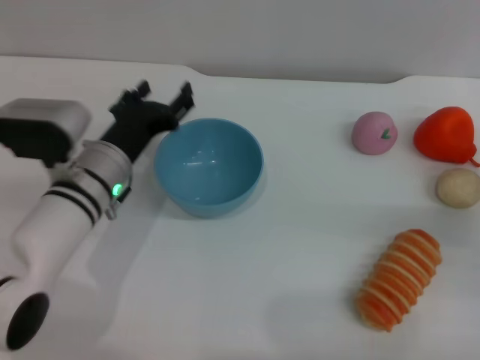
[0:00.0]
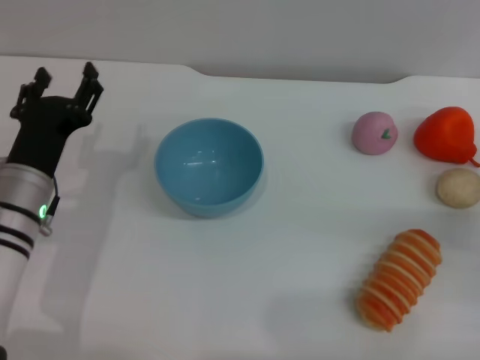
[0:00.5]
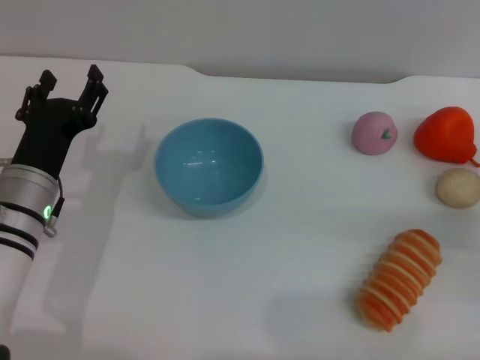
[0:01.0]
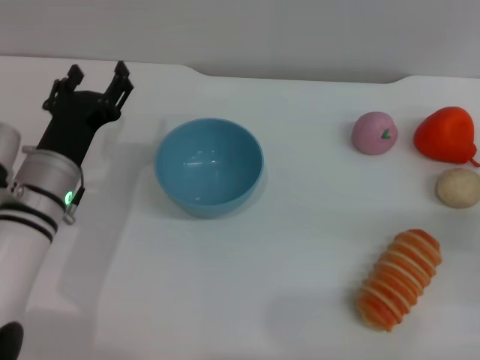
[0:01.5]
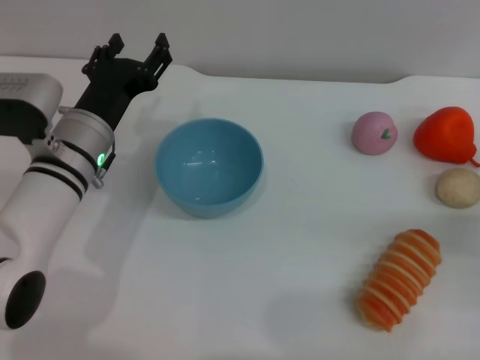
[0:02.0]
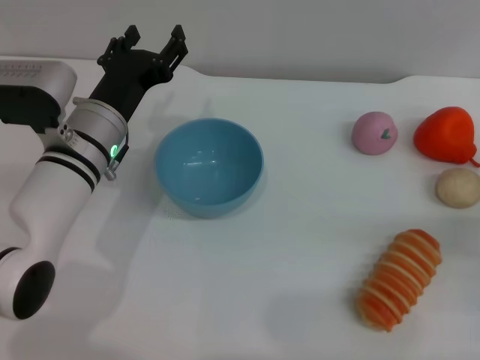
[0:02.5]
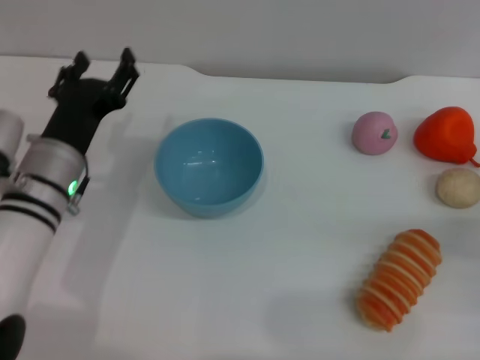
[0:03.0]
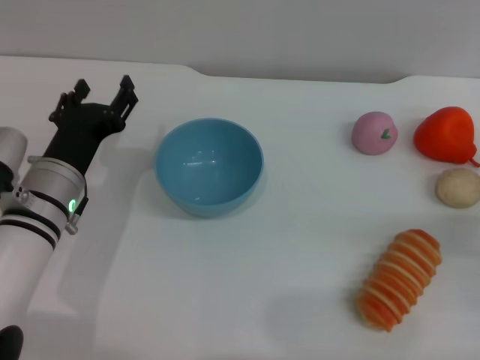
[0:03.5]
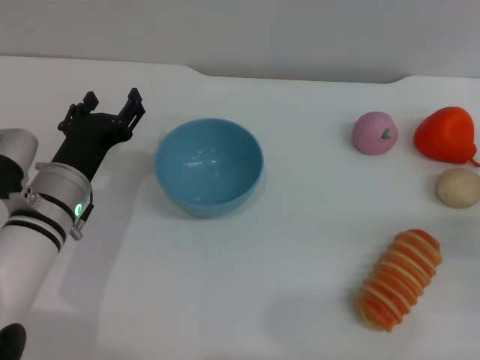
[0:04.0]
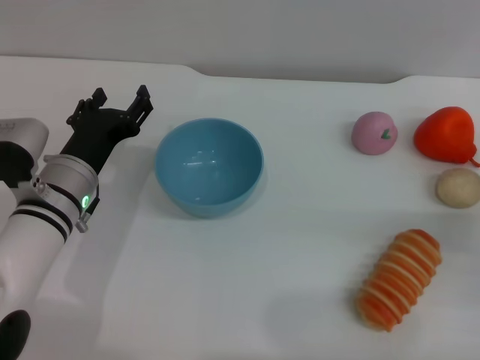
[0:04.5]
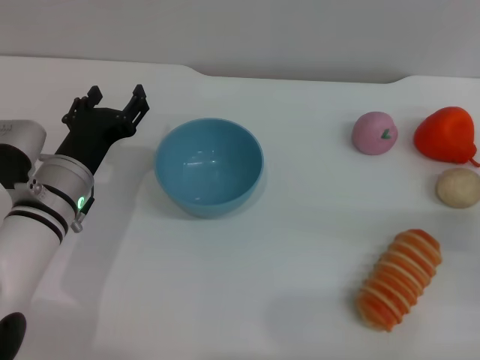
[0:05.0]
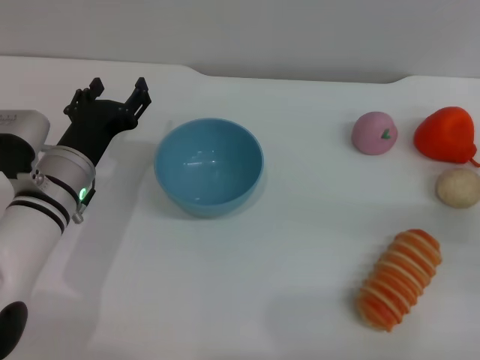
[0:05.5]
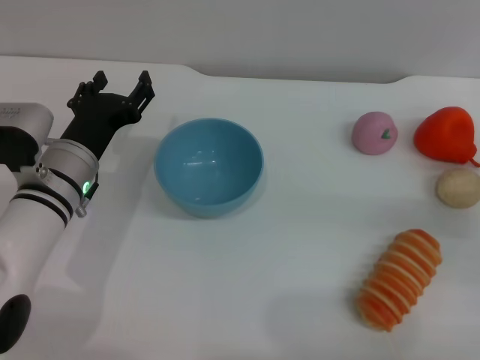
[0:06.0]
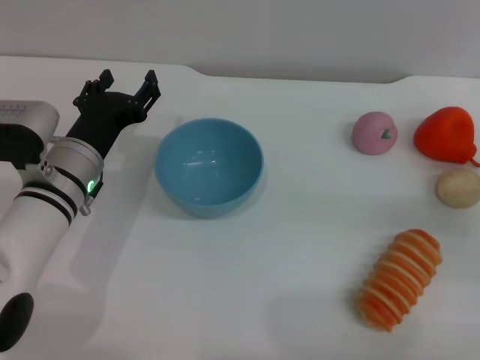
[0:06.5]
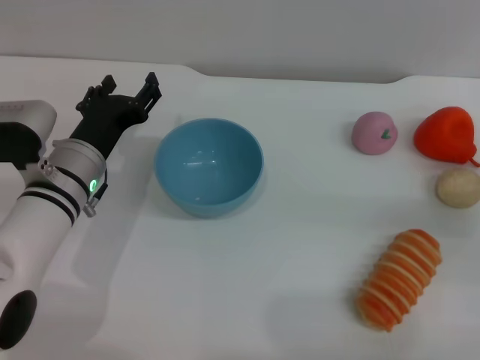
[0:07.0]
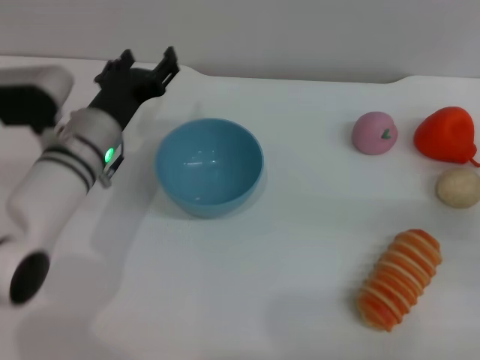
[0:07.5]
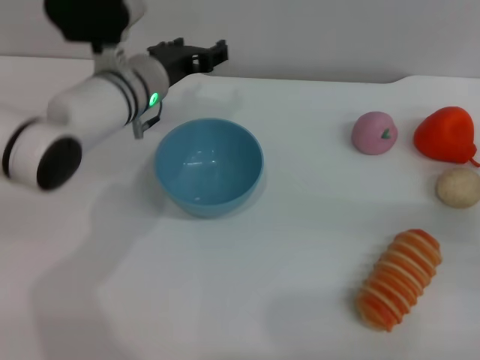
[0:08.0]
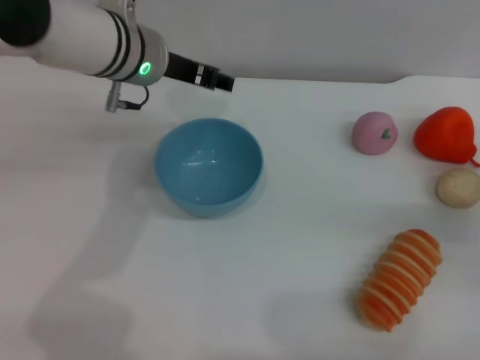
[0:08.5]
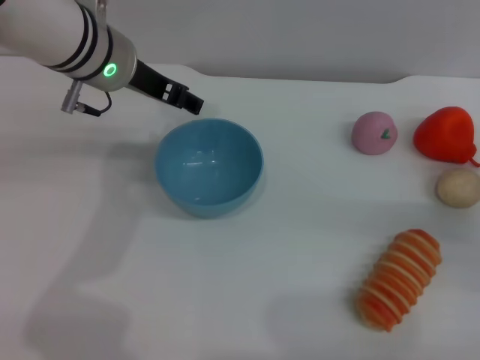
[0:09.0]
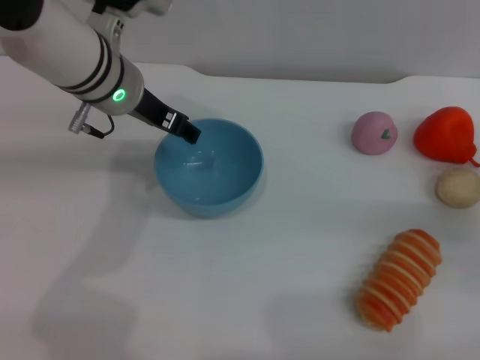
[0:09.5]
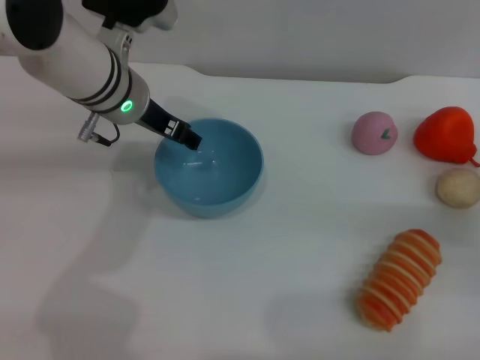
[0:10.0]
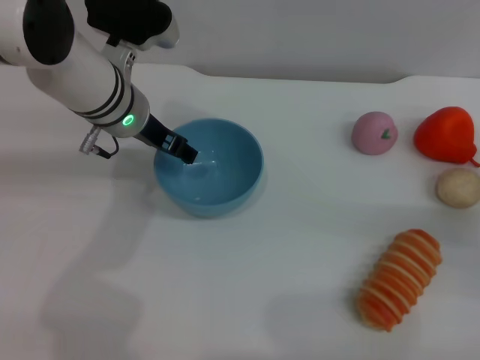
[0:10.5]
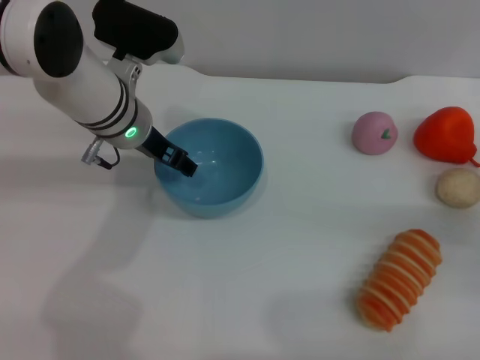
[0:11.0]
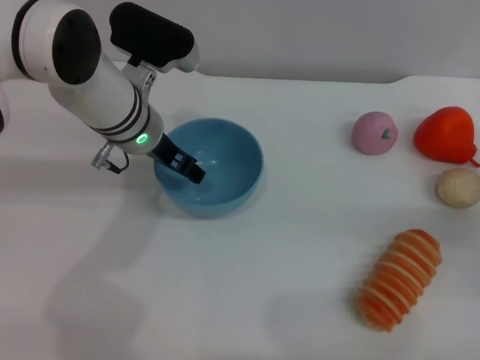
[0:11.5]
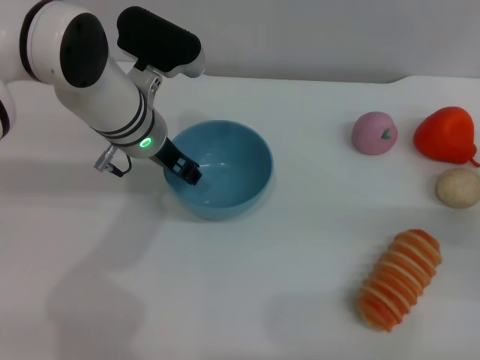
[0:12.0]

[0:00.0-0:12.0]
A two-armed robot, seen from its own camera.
Task of the whole recording: put the bread into the blue bowl and pour it out repeatedly.
0:02.0 to 0:04.0: The left gripper shifts by about 5 cm.
0:04.0 to 0:06.0: The grippers make only small movements.
0:06.0 to 0:08.0: The left gripper moves forward, to the right and upward, about 15 cm.
0:10.0 to 0:12.0: The grippers make only small movements.

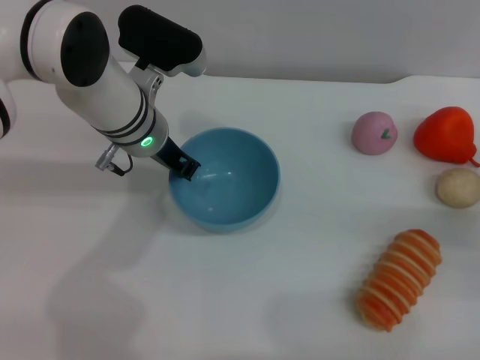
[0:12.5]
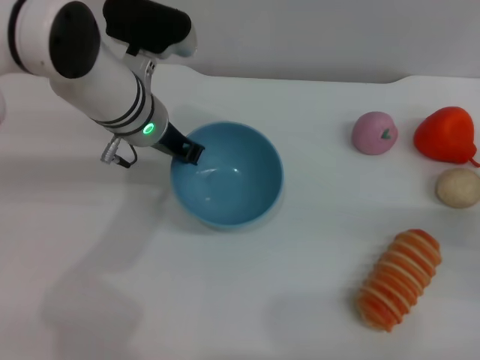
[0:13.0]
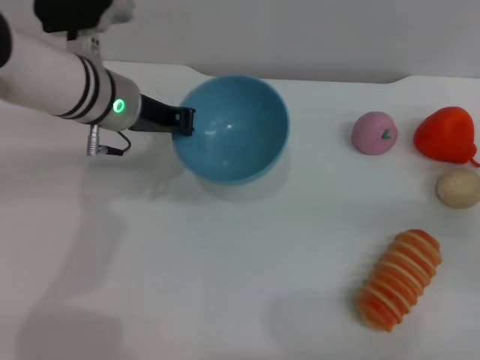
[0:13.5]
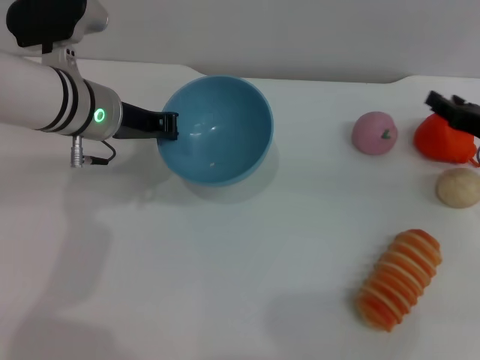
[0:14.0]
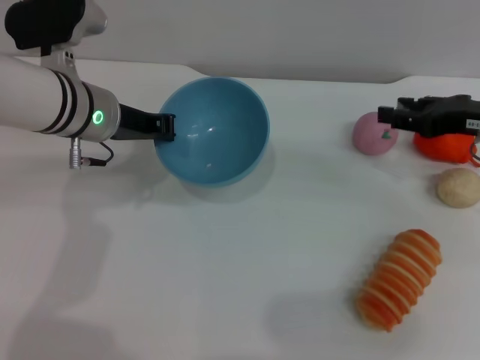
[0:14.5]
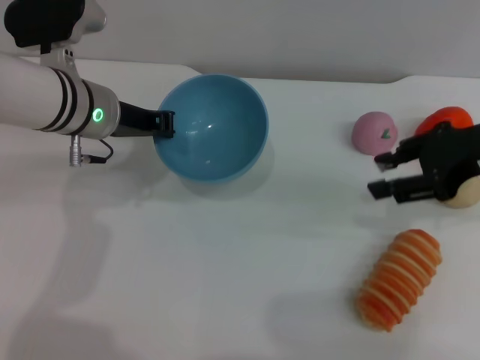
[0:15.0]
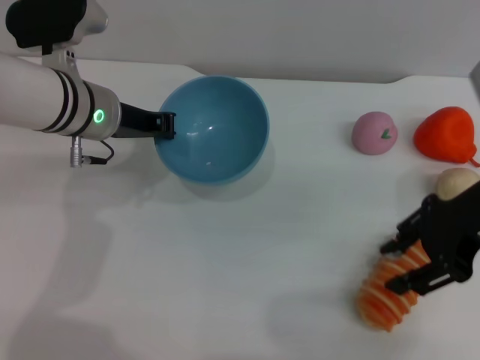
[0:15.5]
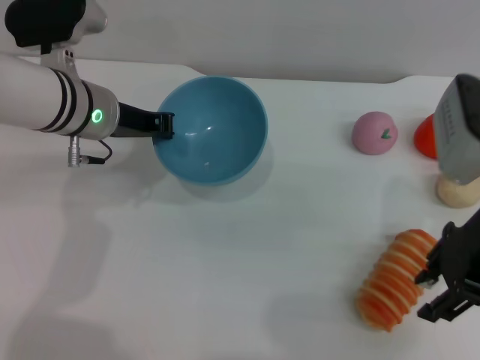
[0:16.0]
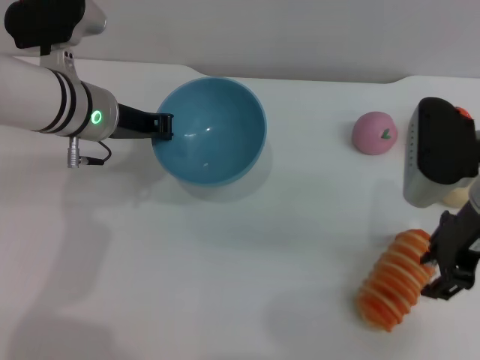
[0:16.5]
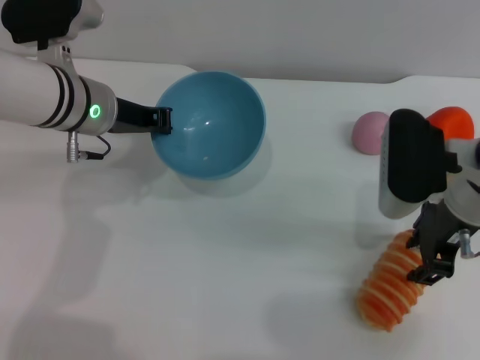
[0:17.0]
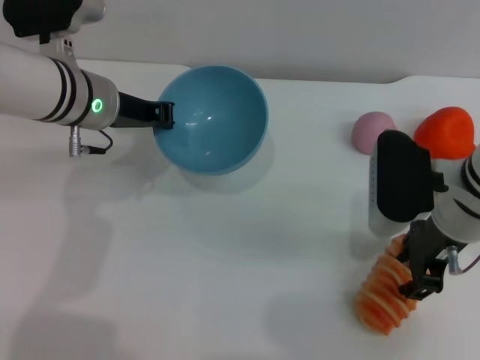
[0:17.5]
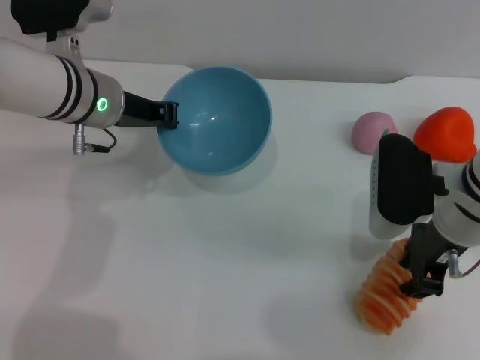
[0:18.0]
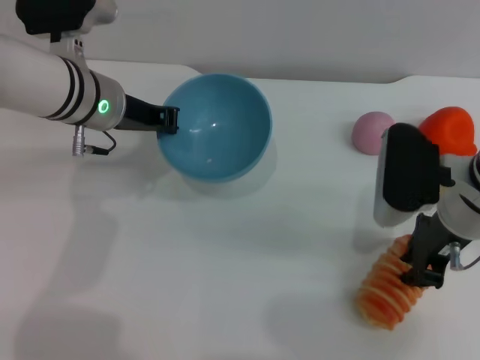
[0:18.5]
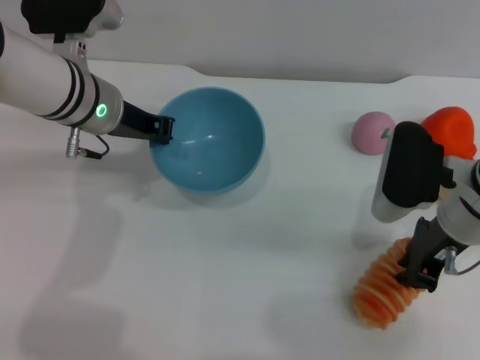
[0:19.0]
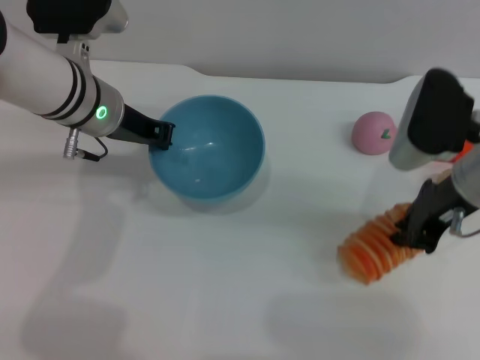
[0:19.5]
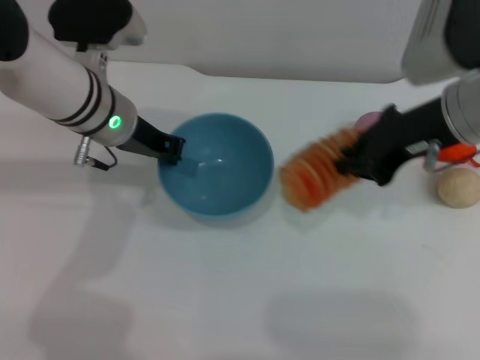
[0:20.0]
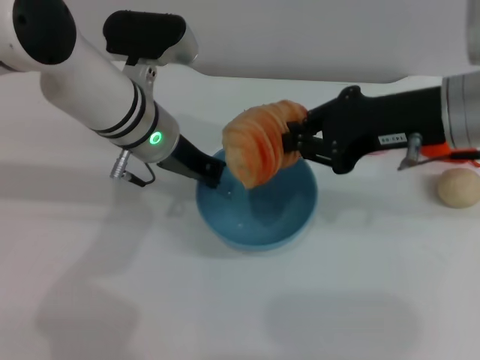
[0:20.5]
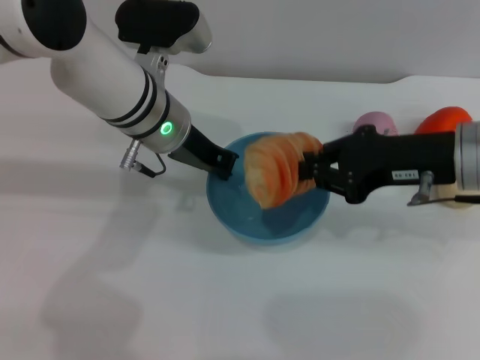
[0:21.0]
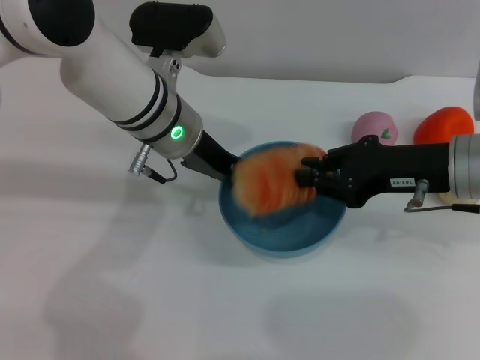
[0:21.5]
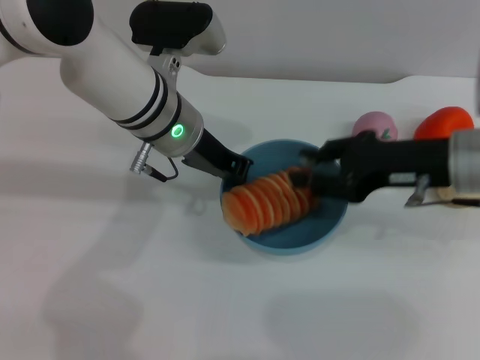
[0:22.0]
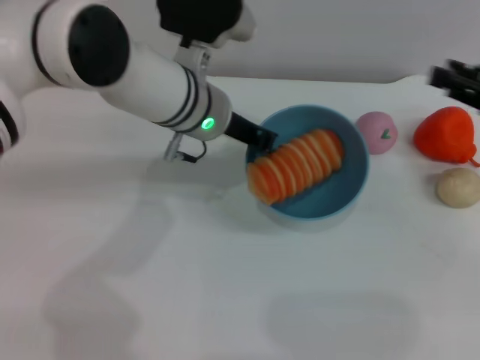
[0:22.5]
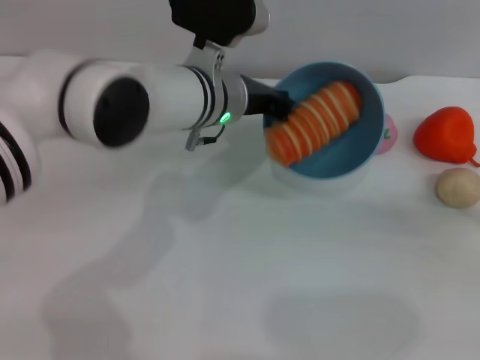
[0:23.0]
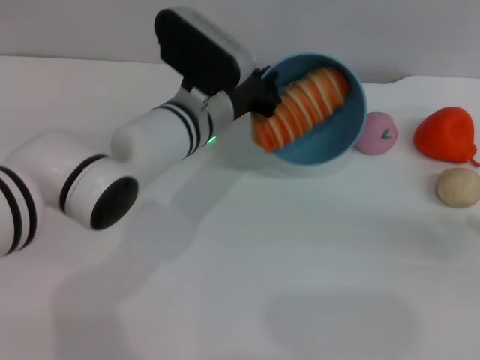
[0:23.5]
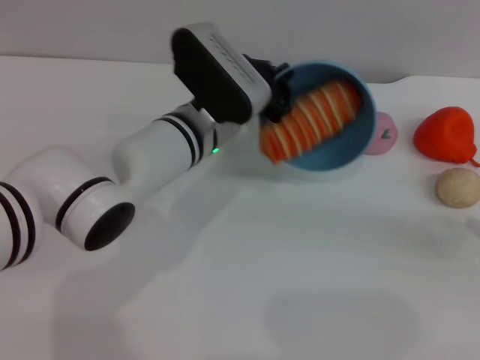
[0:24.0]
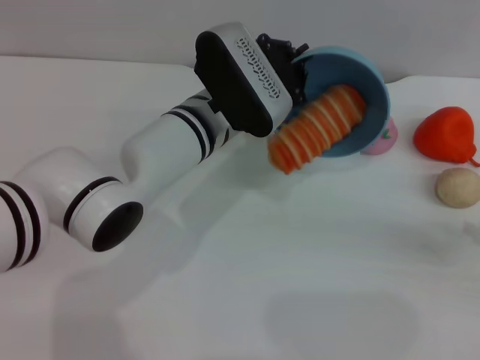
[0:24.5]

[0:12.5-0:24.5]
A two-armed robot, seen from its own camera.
Task of the whole recording: put the bread into the blue bowl and pour it out repeatedly.
Step, 0:14.0 to 0:19.5: Pick up the bread with the right gripper.
Step, 0:20.0 to 0:22.0: Place the bread into the bowl.
0:12.5 to 0:14.5: The right gripper is displaced upward, forward and to the left by about 15 cm. The left gripper heads to the left, covering some 5 cm.
0:14.5 to 0:16.5: The right gripper moves to the left, some 10 cm.
0:16.5 to 0:18.5: The right gripper closes.
0:18.5 to 0:20.5: The left gripper shifts roughly 5 cm to the right. Meanwhile the right gripper moves upward, about 10 cm.
0:20.5 to 0:22.5: The left gripper moves approximately 5 cm. Meanwhile the right gripper is displaced to the right by about 15 cm, and opens up.
0:22.5 to 0:24.5: The right gripper shifts roughly 10 cm to the right, backward and downward.

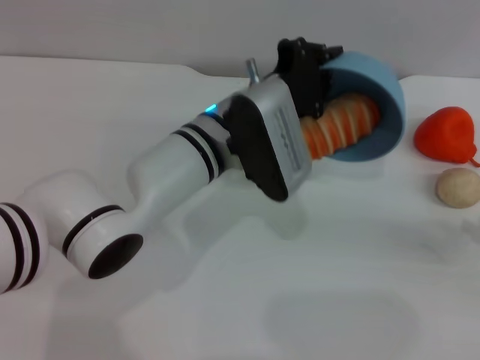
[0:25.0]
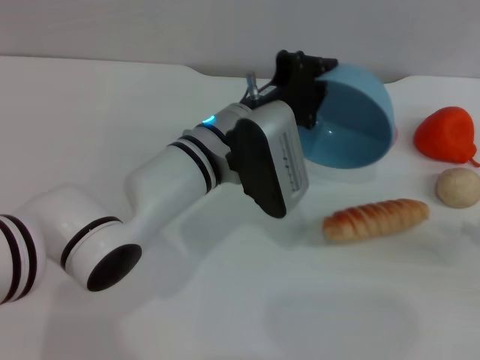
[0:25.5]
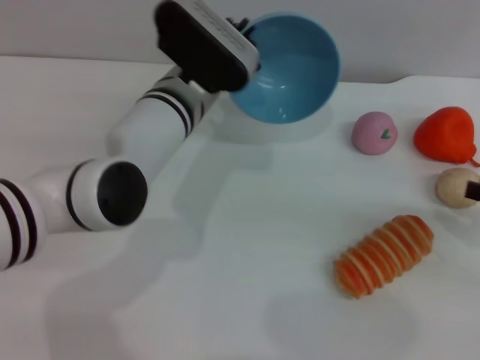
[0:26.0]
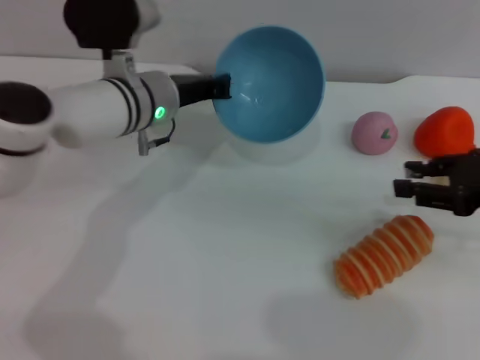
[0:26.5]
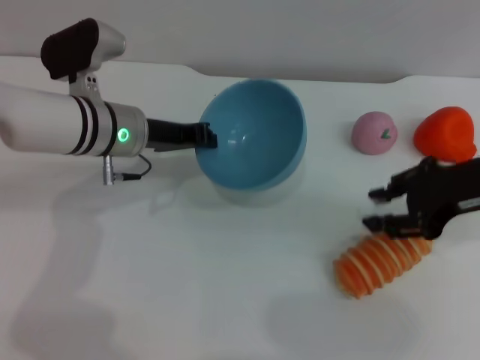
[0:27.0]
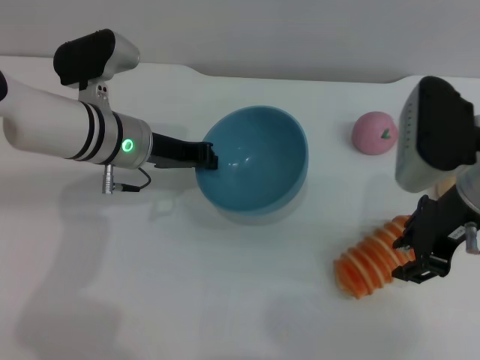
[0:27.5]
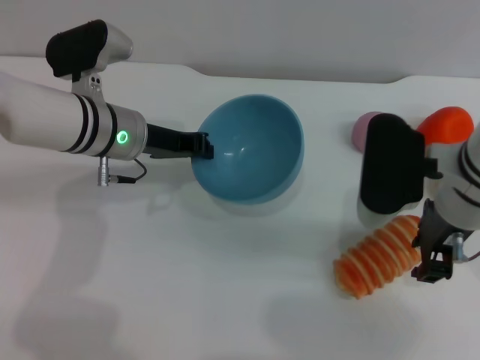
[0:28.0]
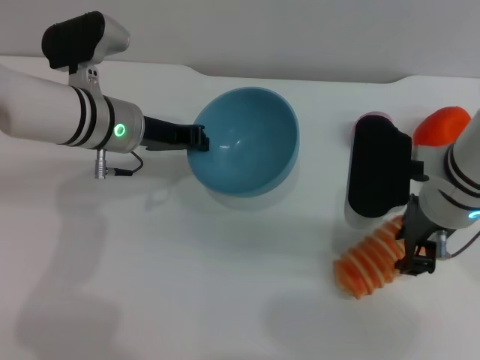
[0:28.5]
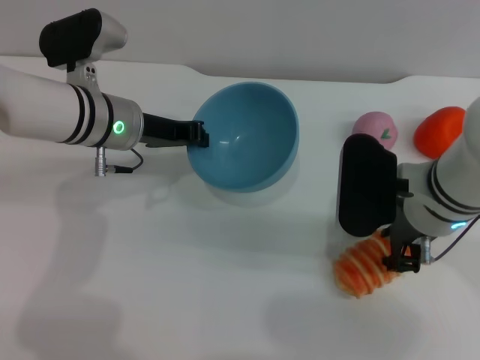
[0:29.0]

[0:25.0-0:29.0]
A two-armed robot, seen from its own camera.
Task of the whole recording: put the bread into the blue bowl and pour it out repeatedly.
0:25.0 to 0:27.0: The left gripper shifts about 15 cm to the left, while the right gripper is displaced to the left, forward and upward by approximately 20 cm.
0:27.0 to 0:29.0: The right gripper travels to the left and downward by roughly 10 cm.
